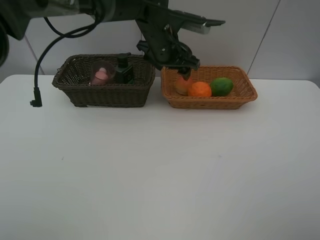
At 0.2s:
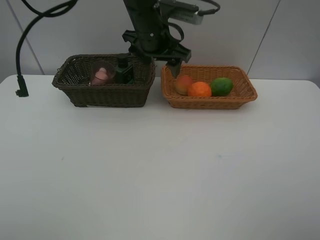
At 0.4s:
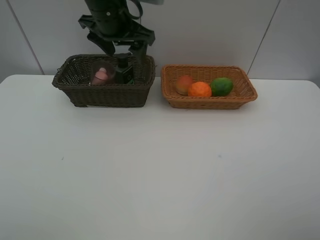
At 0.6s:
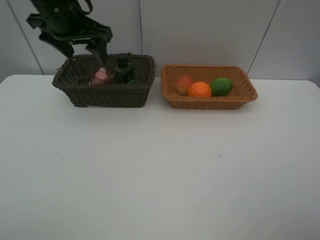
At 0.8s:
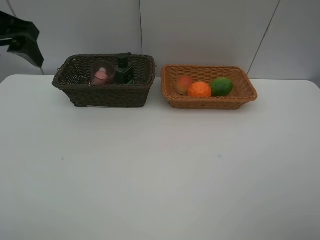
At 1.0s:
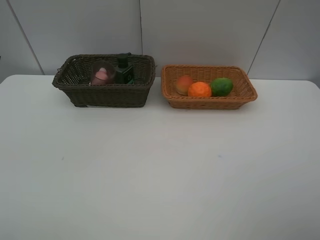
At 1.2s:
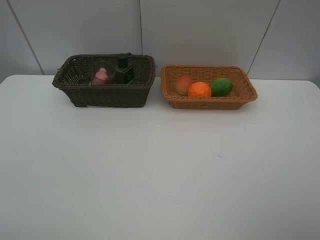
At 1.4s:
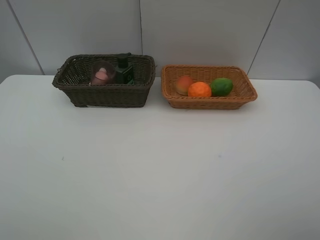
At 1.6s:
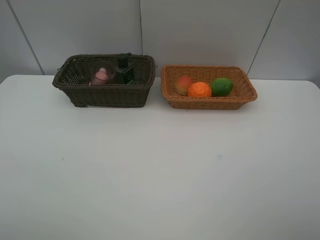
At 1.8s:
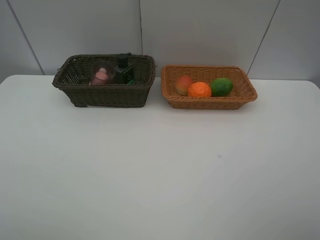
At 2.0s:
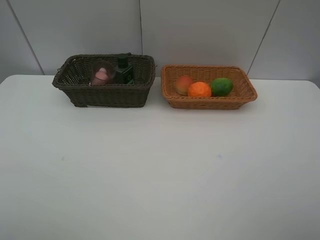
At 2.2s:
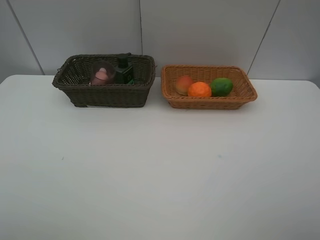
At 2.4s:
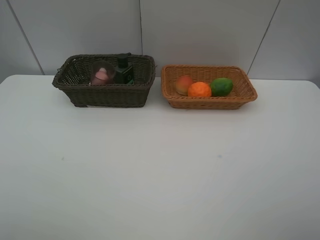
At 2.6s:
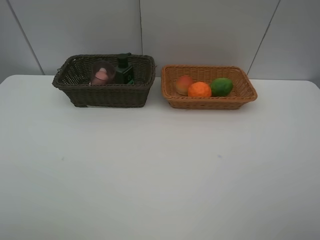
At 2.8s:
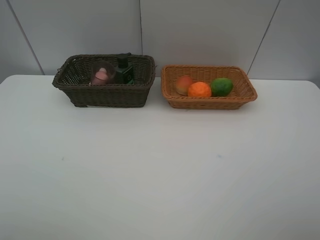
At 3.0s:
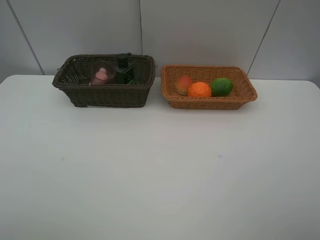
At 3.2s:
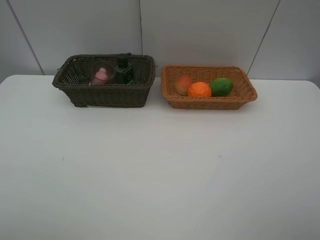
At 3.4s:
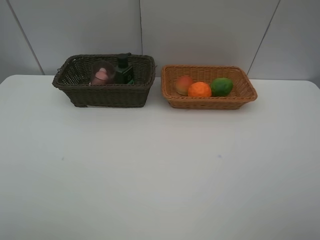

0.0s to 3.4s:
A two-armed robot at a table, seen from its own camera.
Task of the whole recording: place multiple objects separately in different baskets.
0.0s to 1.6s: The left gripper travels backward and to the left by approximately 50 cm.
